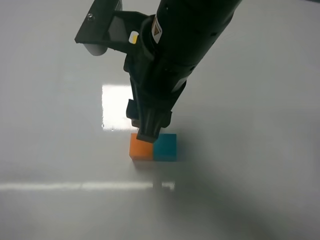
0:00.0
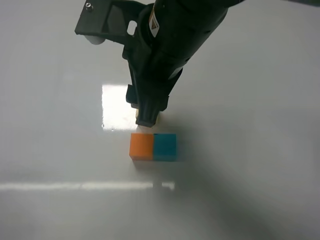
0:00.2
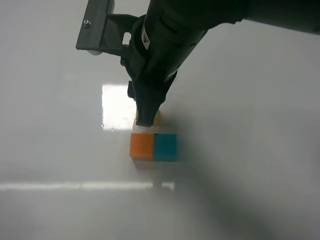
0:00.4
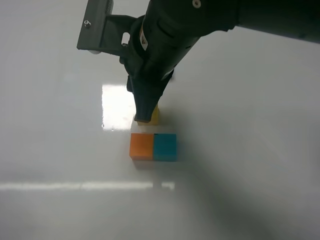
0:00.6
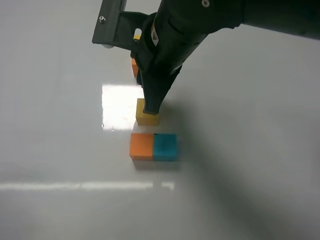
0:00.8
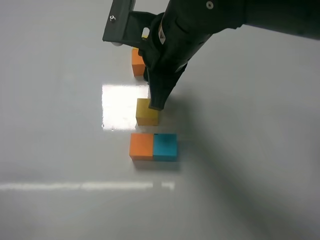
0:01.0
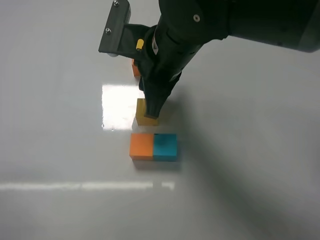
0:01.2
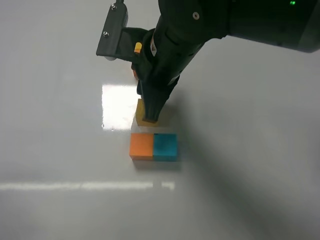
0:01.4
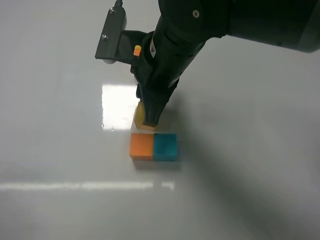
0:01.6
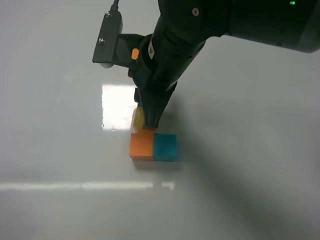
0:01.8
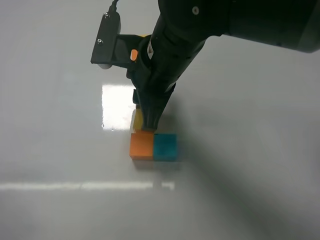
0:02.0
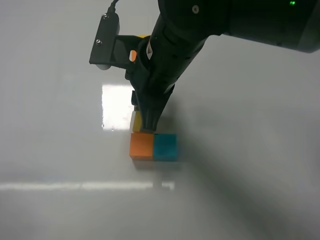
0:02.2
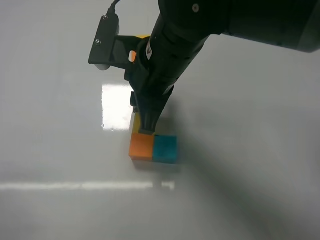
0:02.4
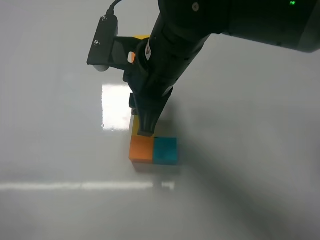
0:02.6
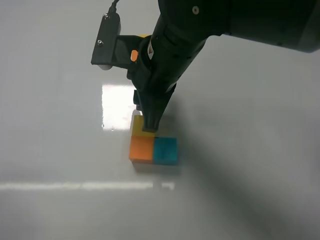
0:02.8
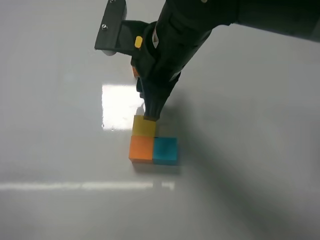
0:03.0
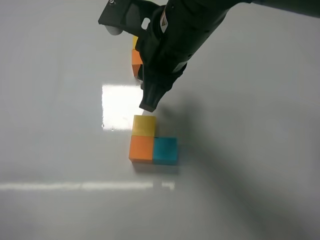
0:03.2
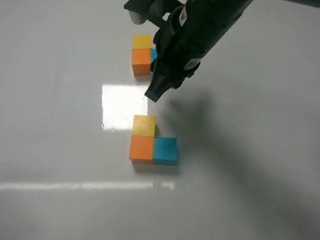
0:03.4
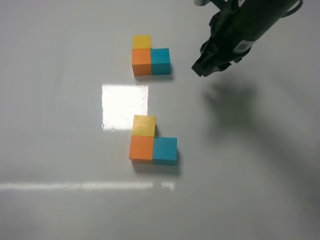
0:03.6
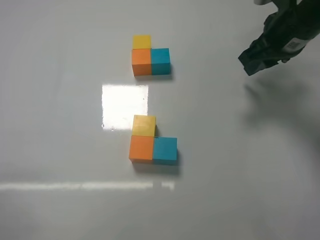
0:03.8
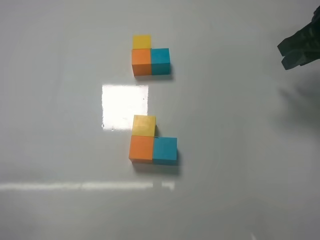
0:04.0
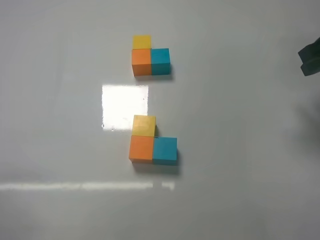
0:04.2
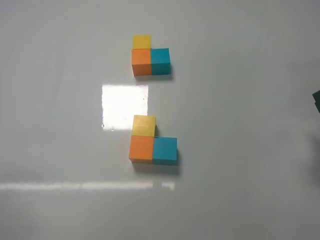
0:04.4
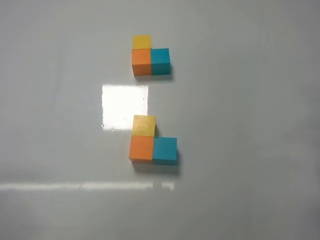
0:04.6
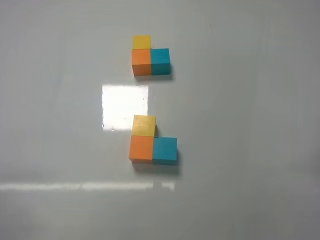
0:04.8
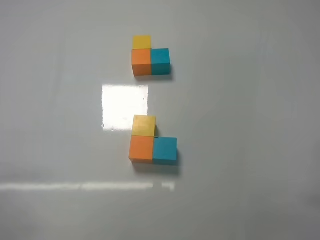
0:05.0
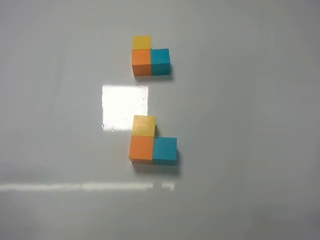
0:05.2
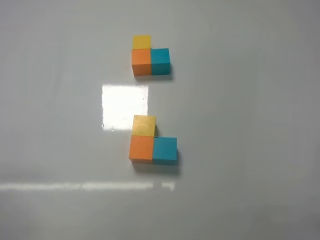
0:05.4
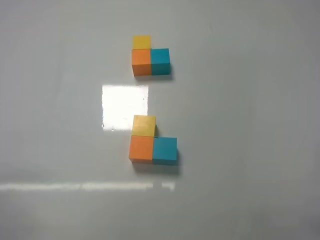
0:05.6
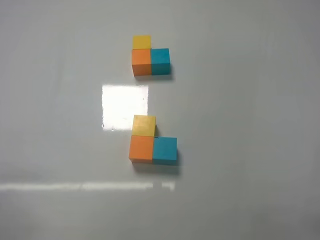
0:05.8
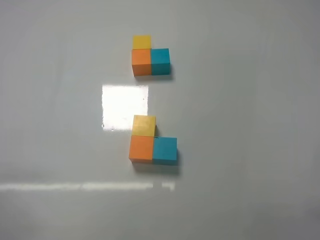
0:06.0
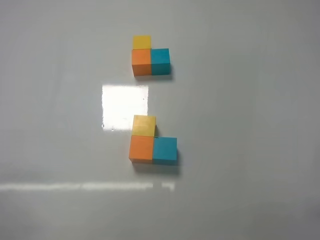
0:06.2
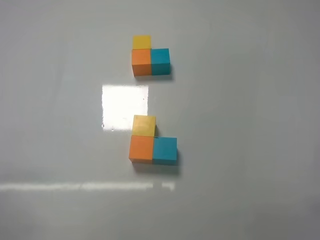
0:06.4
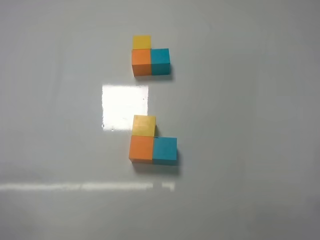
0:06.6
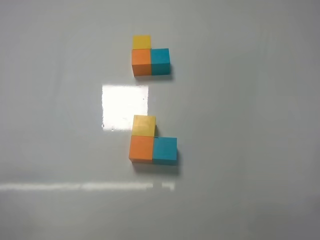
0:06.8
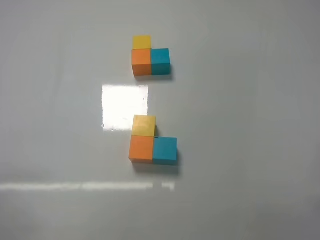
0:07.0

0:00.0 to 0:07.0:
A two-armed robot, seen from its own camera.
Task of the whole recording: According to the building block template in front, assemble the scattered blocks together.
Step, 0:00.0 to 0:02.6: Put the yellow cube on the front of the orange cube with the right gripper.
0:00.0 to 0:01.4: The right gripper moves forward, some 5 cm, and closes up.
0:01.4 to 0:02.8: The grippers make only small movements.
0:02.8 to 0:04.2: The right gripper shifts roughly 30 cm to the right.
0:04.2 to 0:05.6: The right gripper shifts some 30 cm backward and downward.
